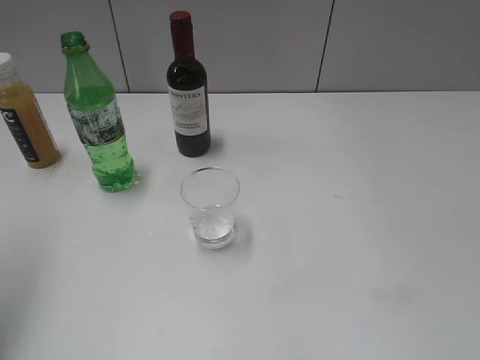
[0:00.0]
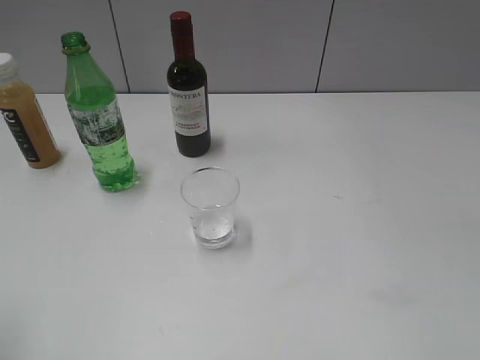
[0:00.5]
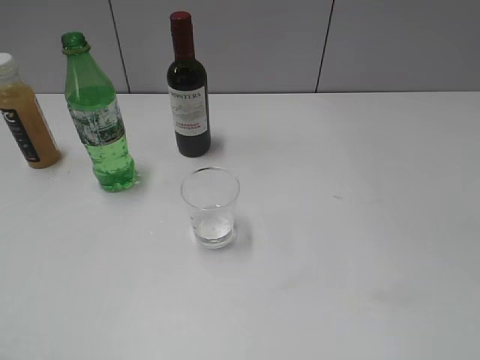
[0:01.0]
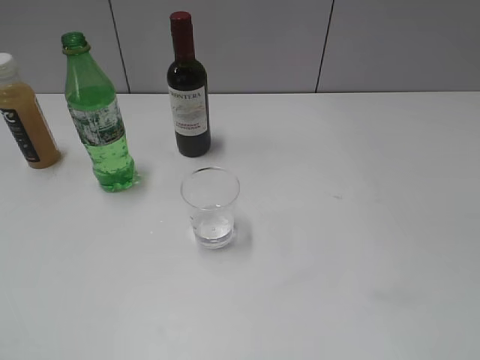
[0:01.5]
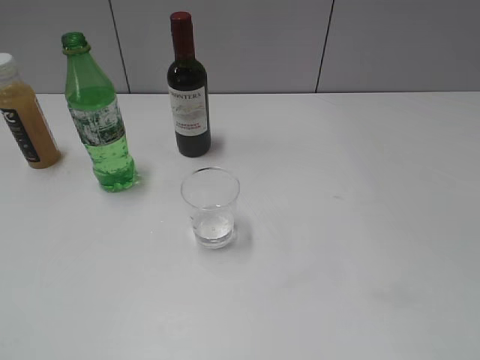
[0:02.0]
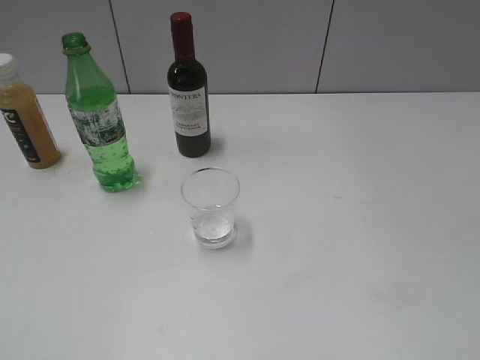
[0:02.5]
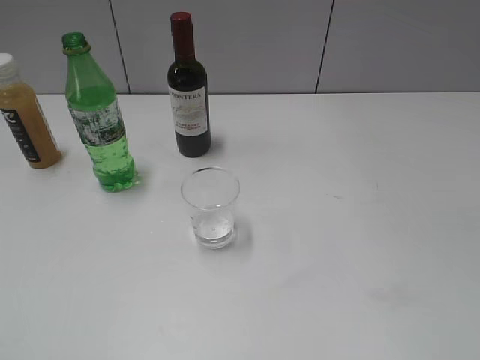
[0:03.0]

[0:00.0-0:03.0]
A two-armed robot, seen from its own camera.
0:00.0 to 0:01.5: The left gripper travels backward by approximately 20 cm.

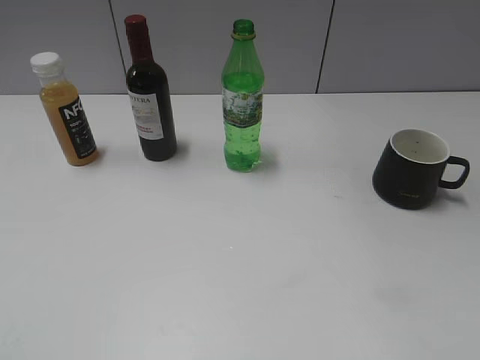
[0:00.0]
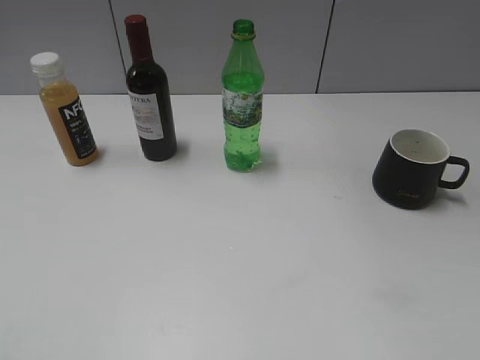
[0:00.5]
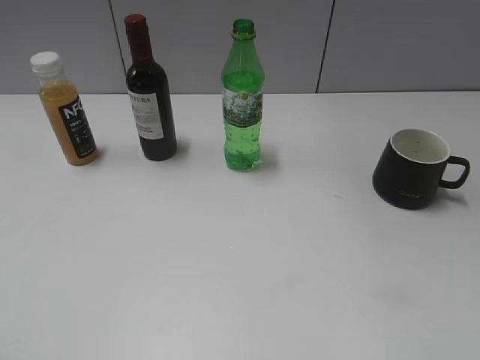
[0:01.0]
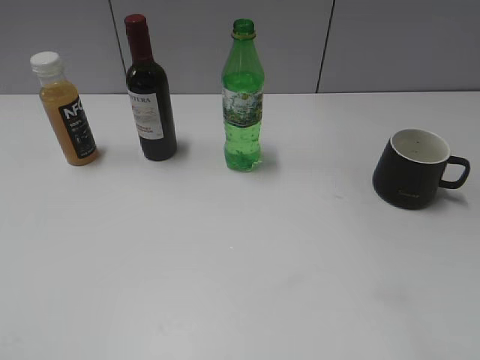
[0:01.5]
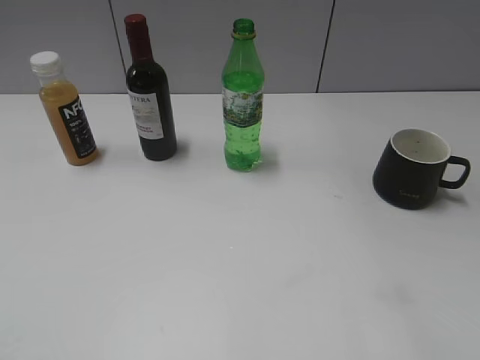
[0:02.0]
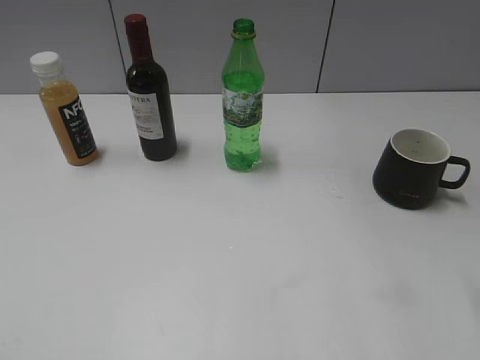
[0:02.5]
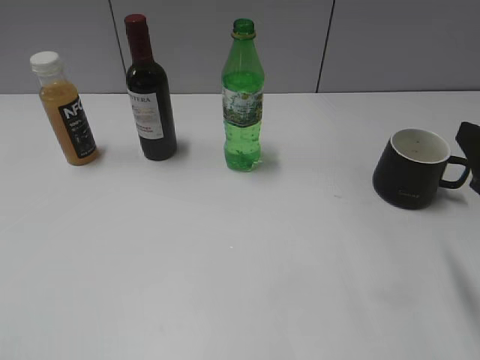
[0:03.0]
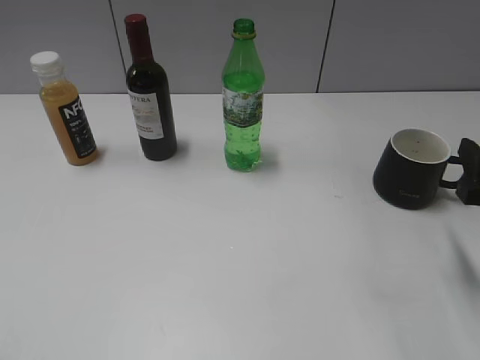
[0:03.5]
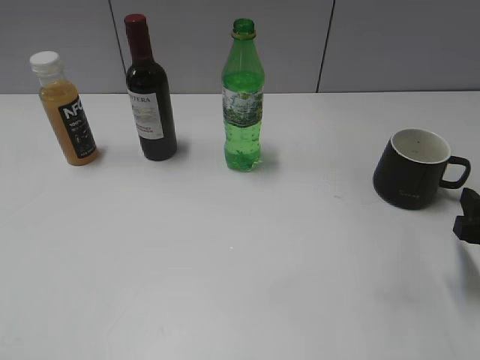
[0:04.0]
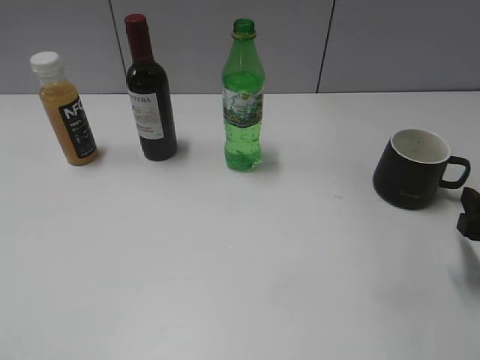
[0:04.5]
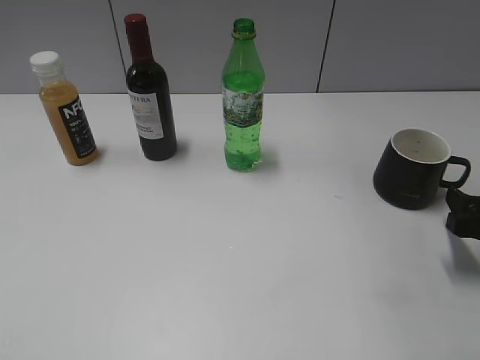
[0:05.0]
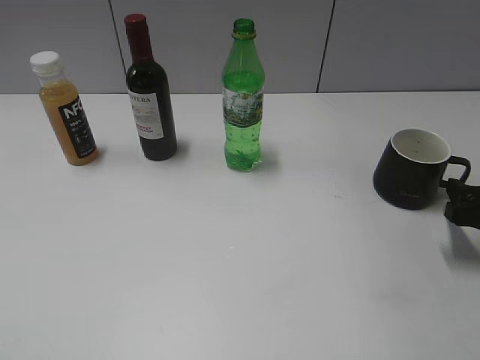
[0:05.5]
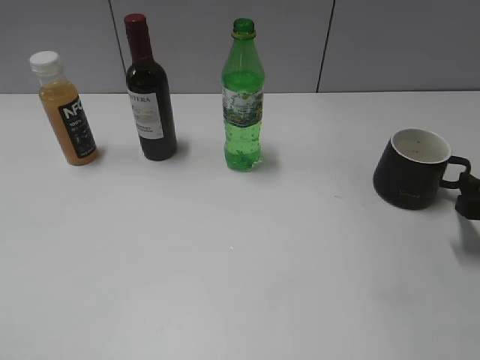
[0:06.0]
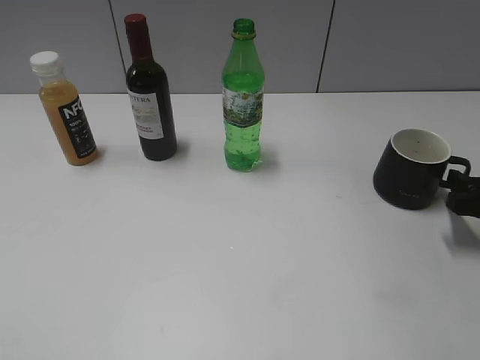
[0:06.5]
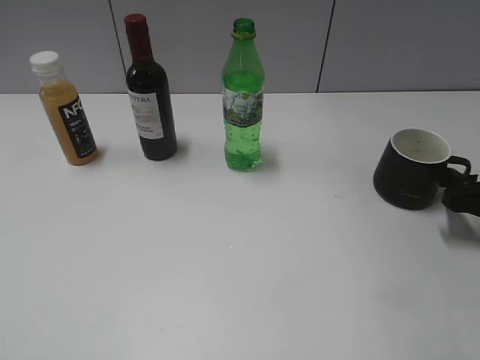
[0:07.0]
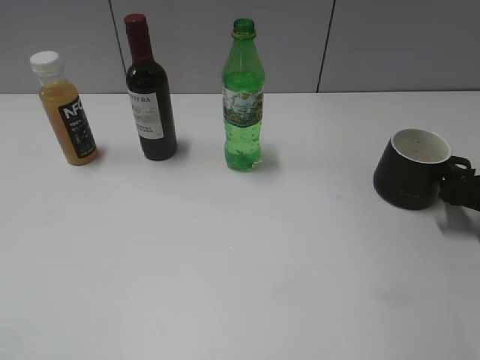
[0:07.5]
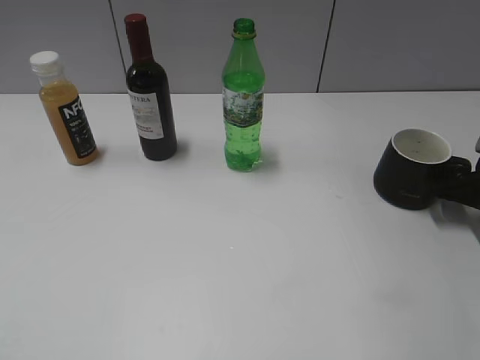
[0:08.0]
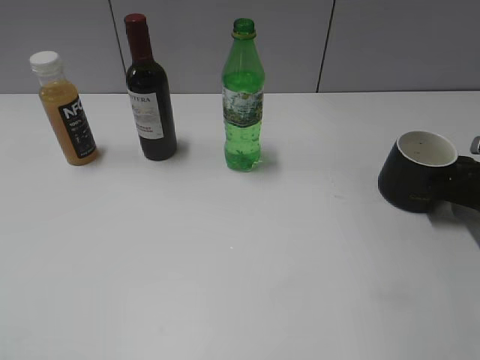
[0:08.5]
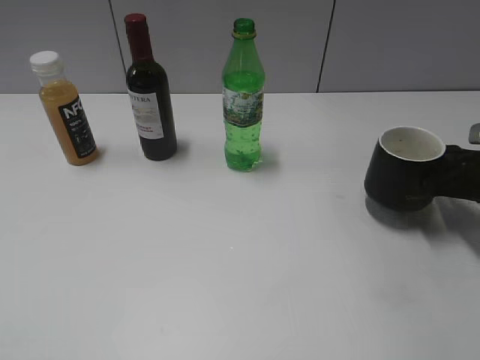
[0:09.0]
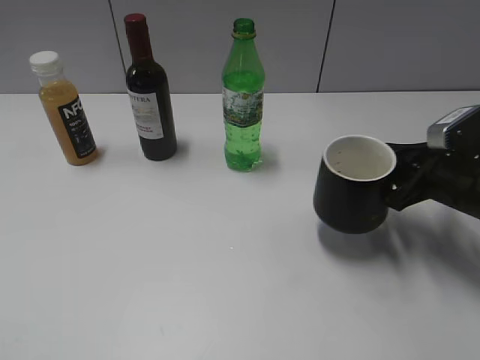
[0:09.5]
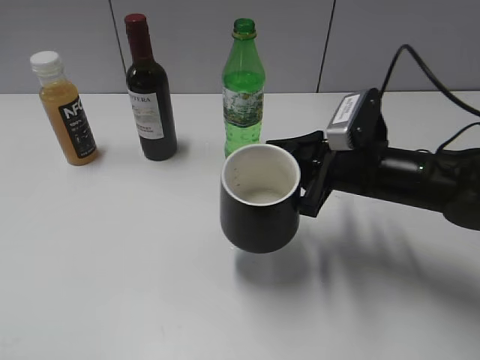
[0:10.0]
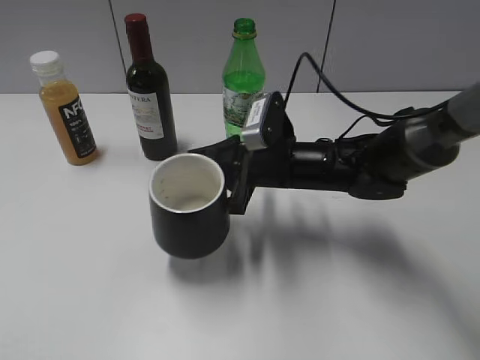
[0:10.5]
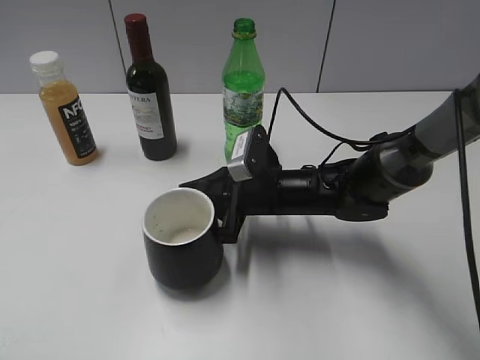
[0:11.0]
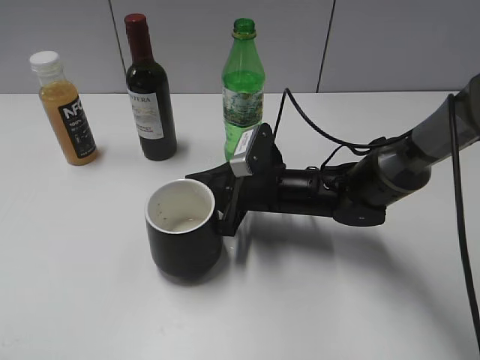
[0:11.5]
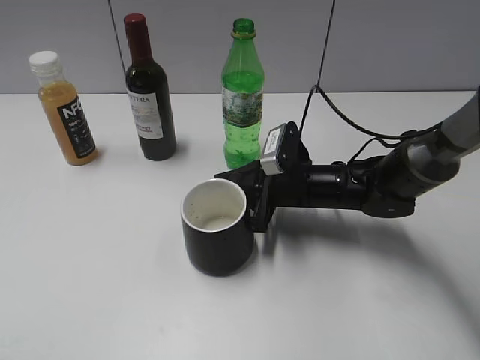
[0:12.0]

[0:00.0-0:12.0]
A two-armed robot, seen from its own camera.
Step, 0:01.0 to 0:08.0: Grasp the black cup with right gripper.
0:02.0 to 0:04.0: The right gripper shifts some 20 cm downward and forward.
0:04.0 to 0:06.0: The right gripper moves forward, some 5 cm.
0:06.0 to 0:08.0: The right gripper shifts about 5 cm forward.
0:08.0 to 0:10.0: The right gripper goes about 20 cm to the left, and closes.
0:10.0 to 0:12.0: The right gripper moves downward and to the left, roughly 10 cm.

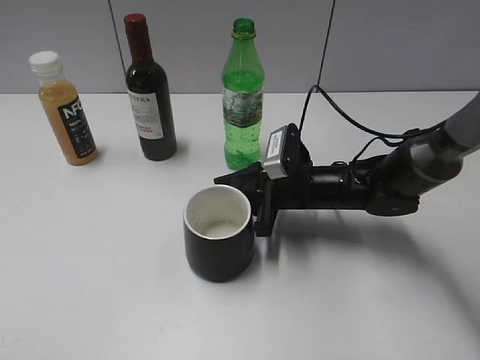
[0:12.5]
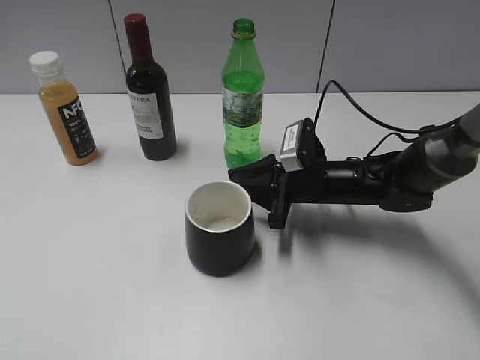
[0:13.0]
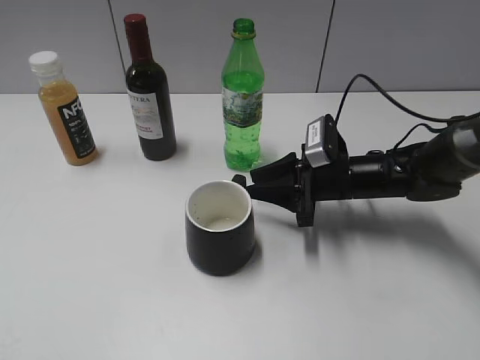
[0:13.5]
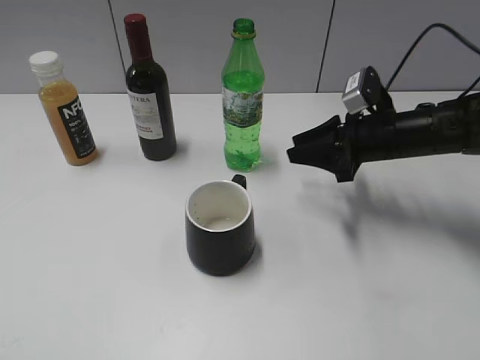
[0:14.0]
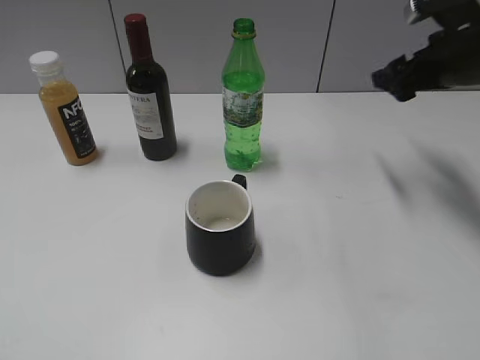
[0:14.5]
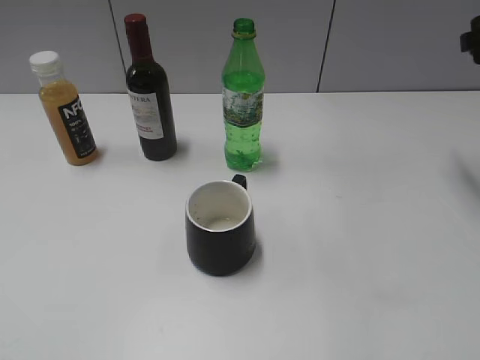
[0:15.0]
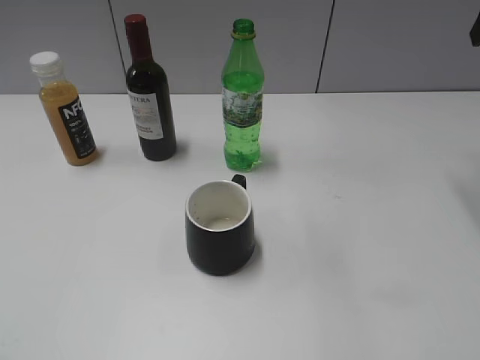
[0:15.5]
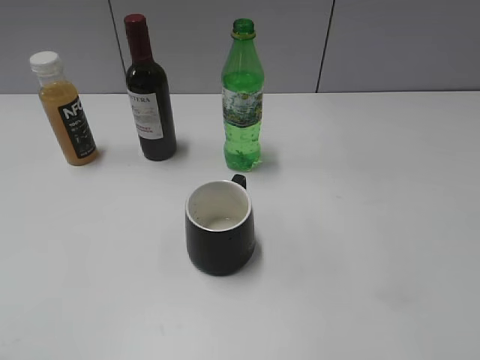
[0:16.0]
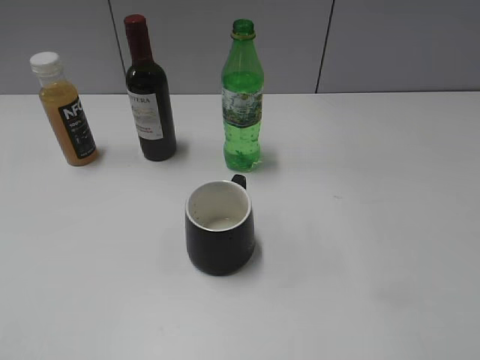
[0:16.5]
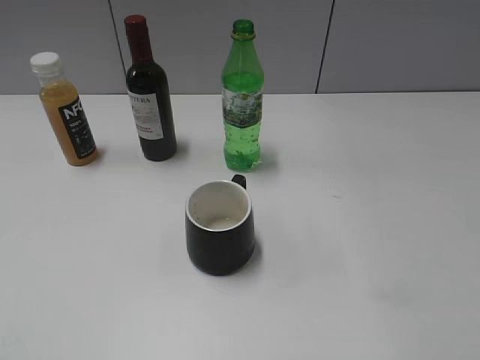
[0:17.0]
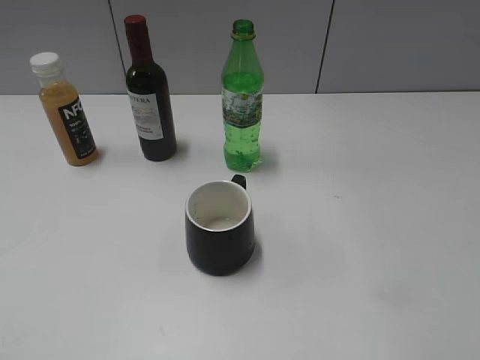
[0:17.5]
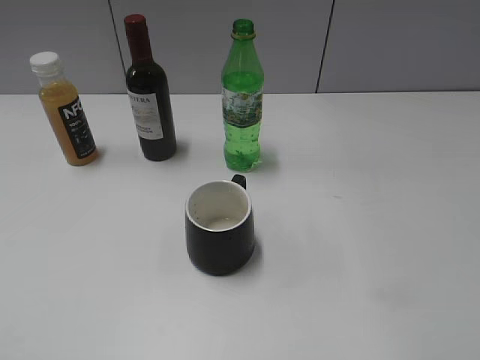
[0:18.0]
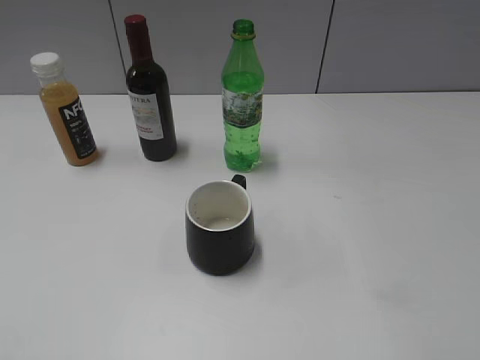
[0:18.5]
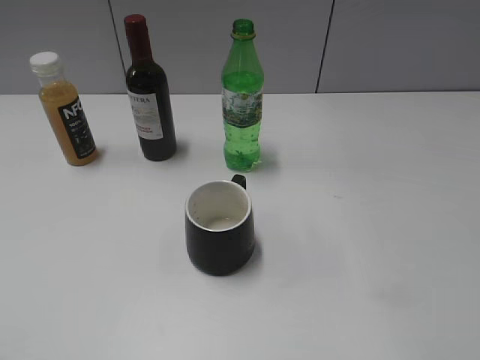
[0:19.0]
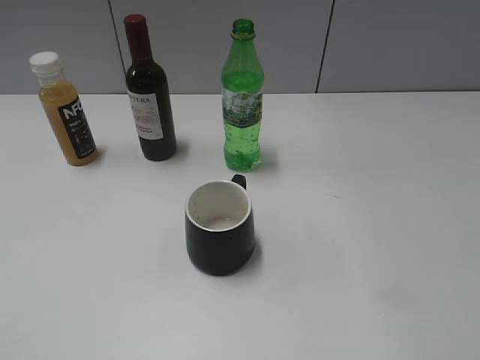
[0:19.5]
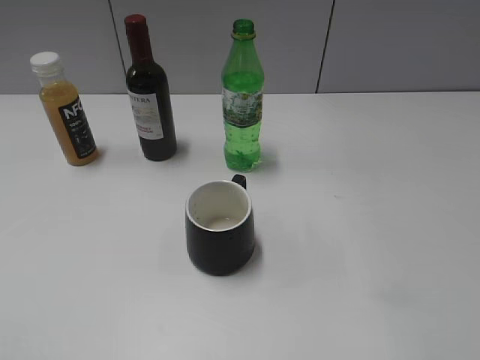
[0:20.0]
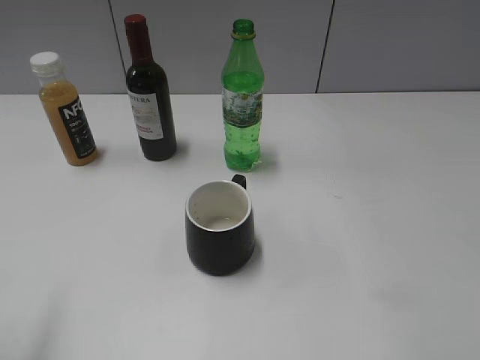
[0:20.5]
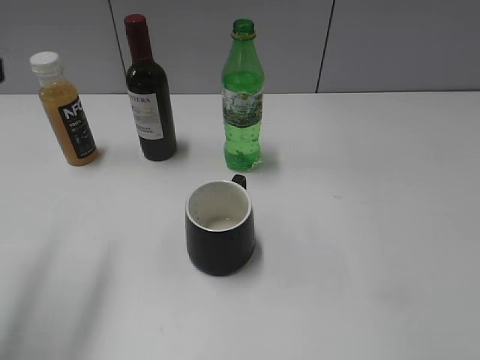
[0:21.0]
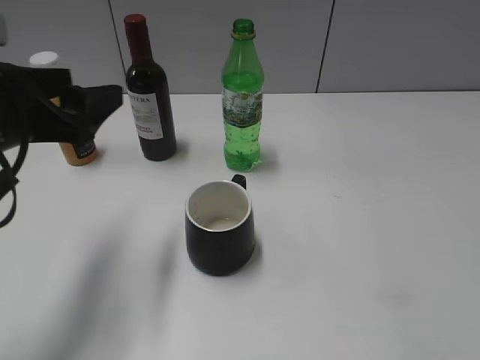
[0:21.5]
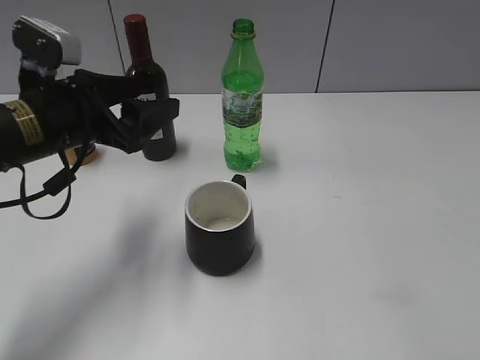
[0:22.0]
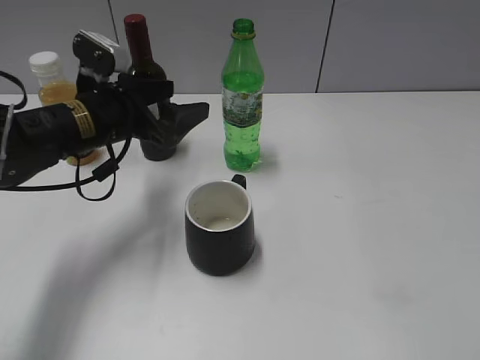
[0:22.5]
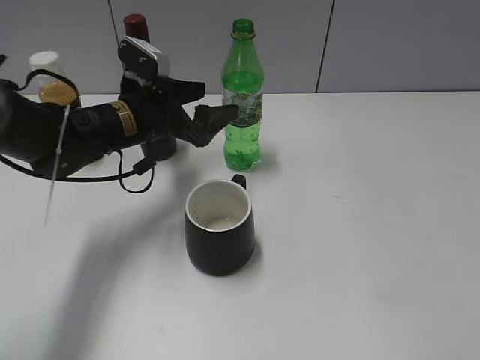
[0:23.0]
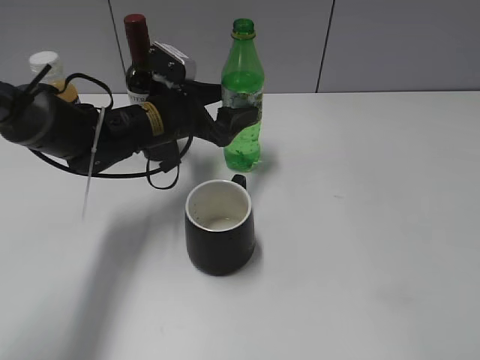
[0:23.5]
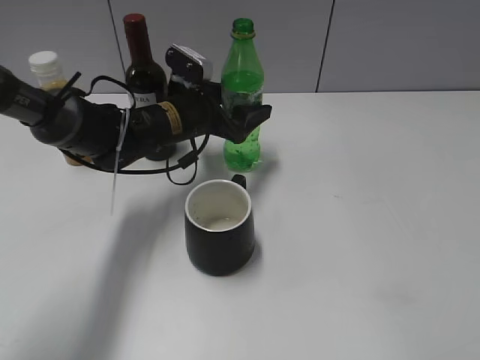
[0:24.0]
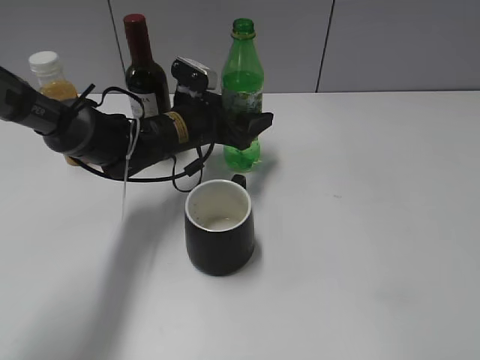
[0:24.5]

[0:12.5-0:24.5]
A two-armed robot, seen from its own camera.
0:12.5 to 0:14.5: The right gripper travels upward and to the right by some 20 cm, and opens.
0:14.5 to 0:16.5: The right gripper travels backward by approximately 30 cm.
0:20.5 to 0:22.5: The left gripper is displaced forward, downward and to the right by approximately 30 cm.
0:22.5 to 0:24.5: The left gripper travels to the right, forward and downward by about 15 cm.
